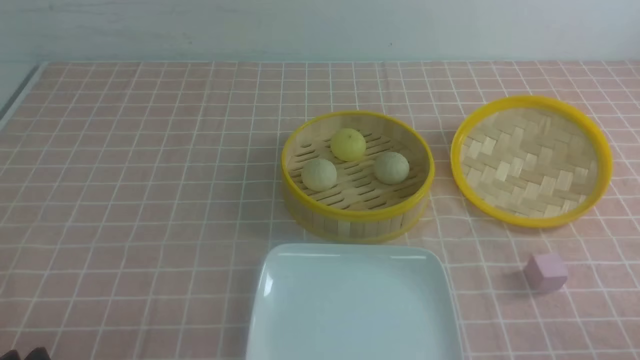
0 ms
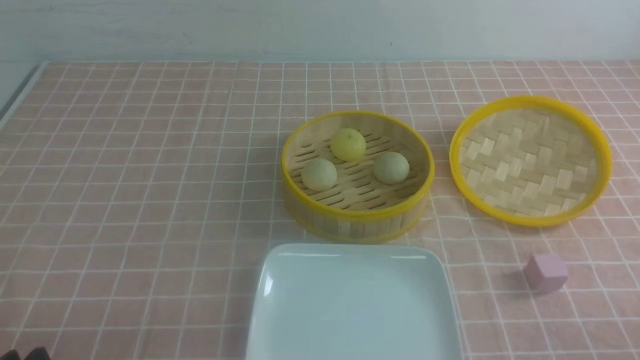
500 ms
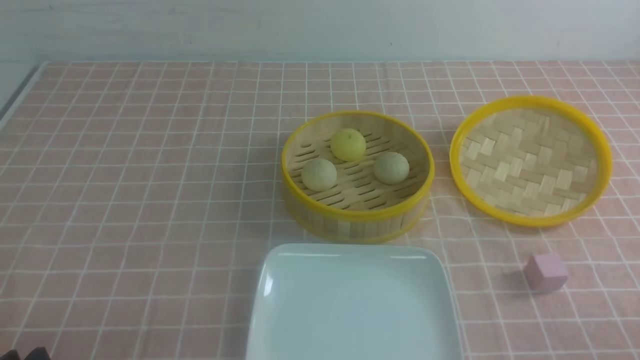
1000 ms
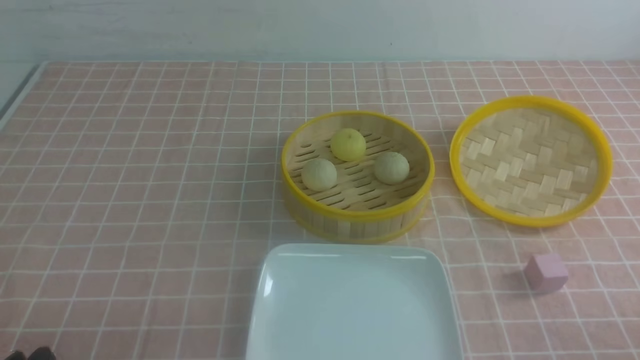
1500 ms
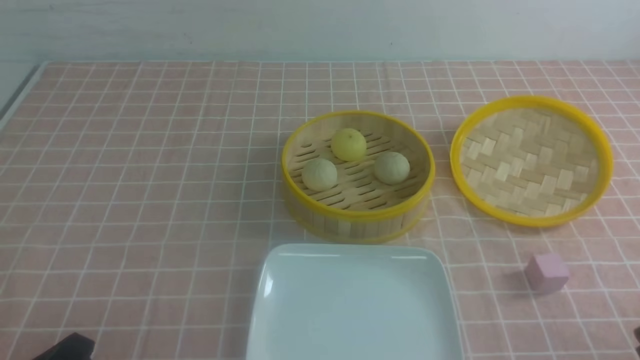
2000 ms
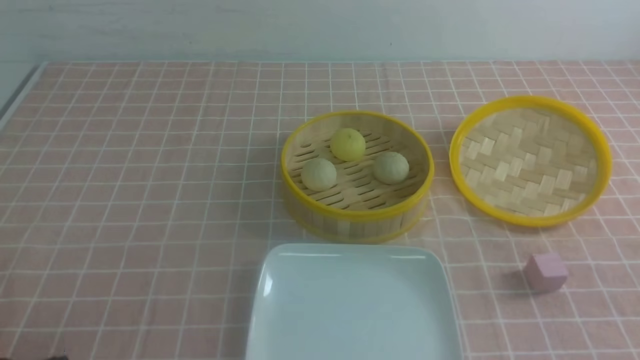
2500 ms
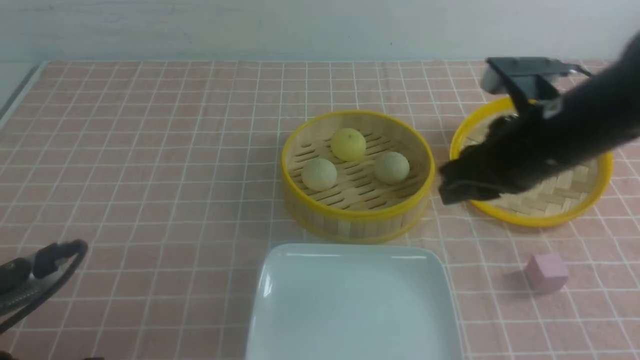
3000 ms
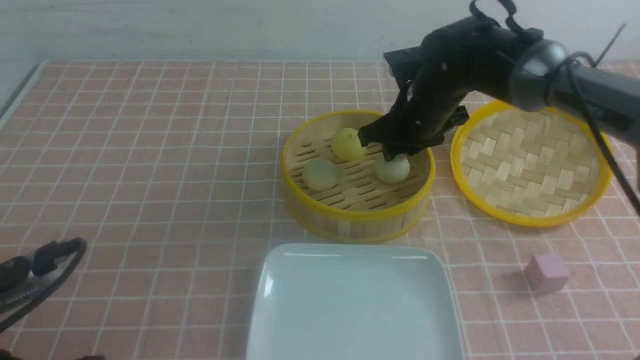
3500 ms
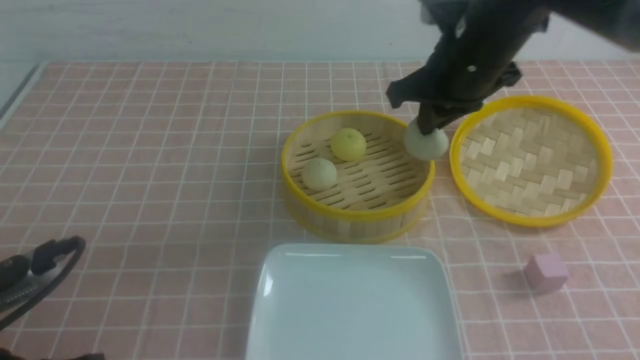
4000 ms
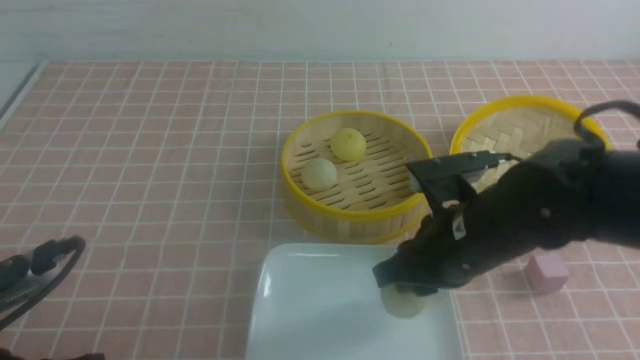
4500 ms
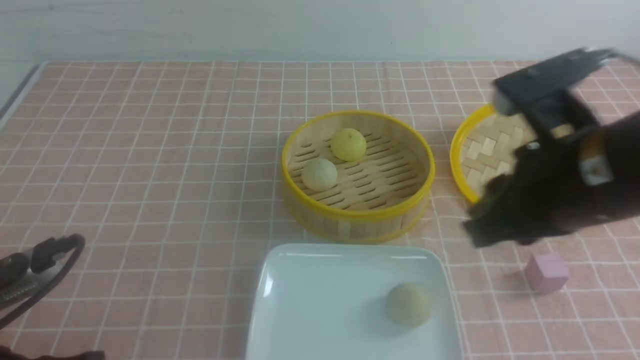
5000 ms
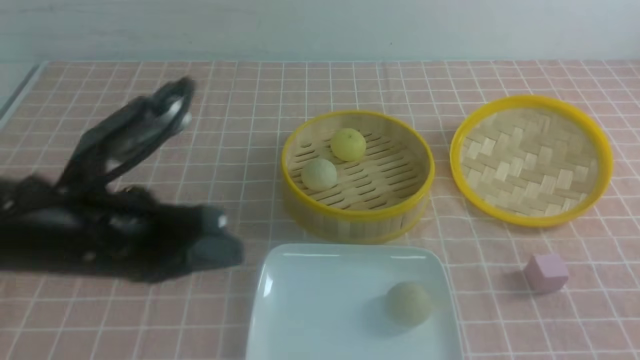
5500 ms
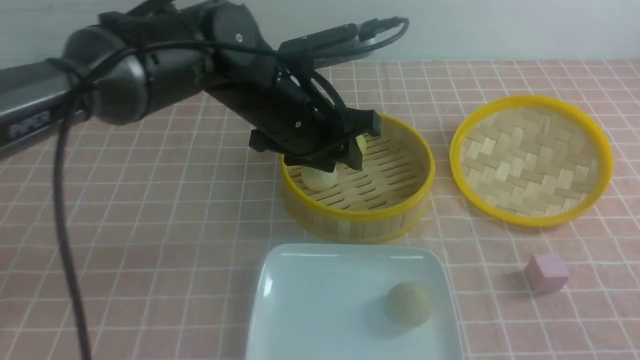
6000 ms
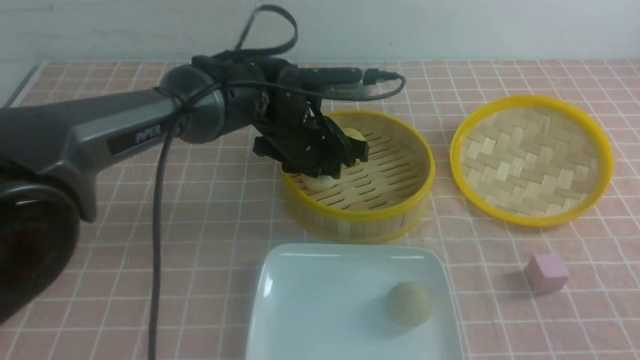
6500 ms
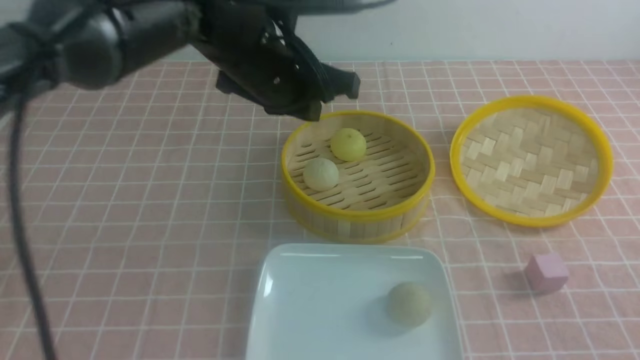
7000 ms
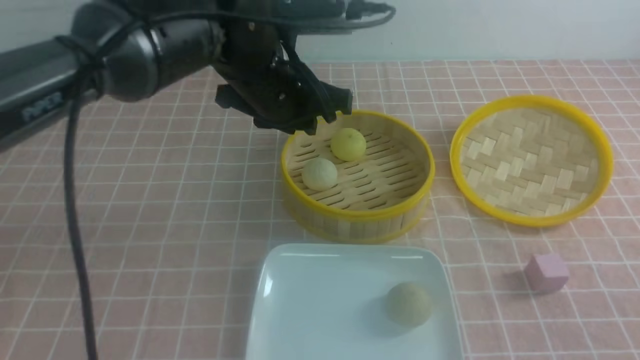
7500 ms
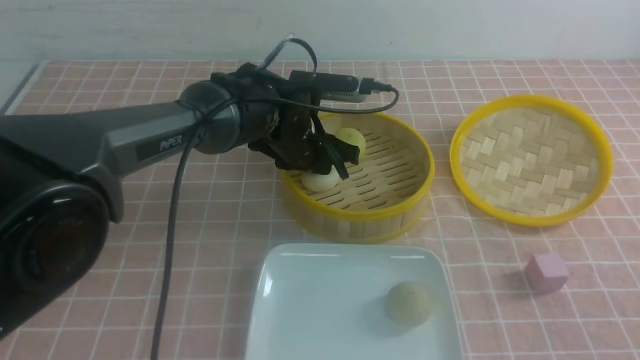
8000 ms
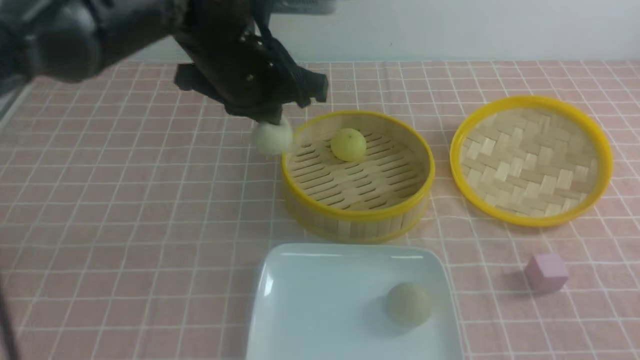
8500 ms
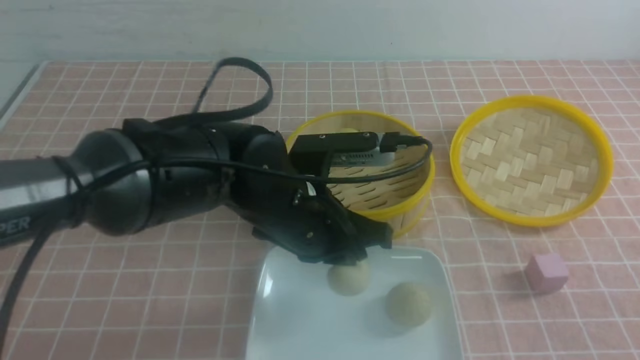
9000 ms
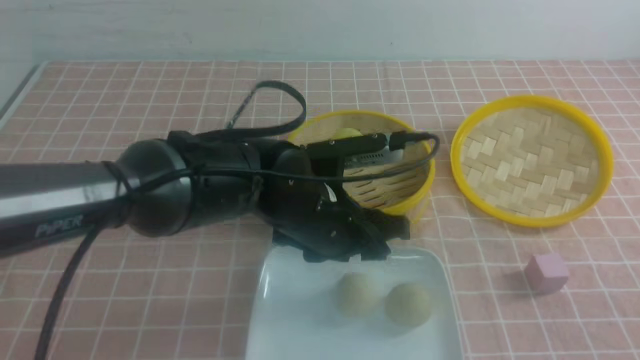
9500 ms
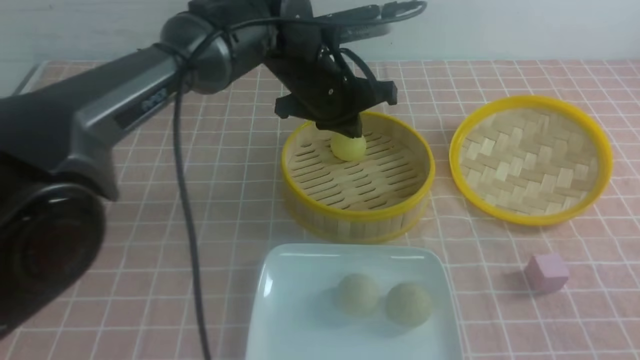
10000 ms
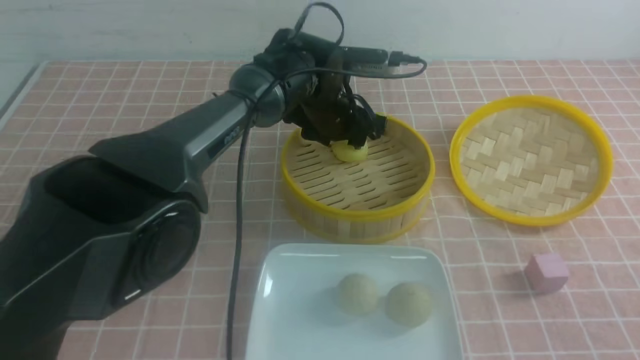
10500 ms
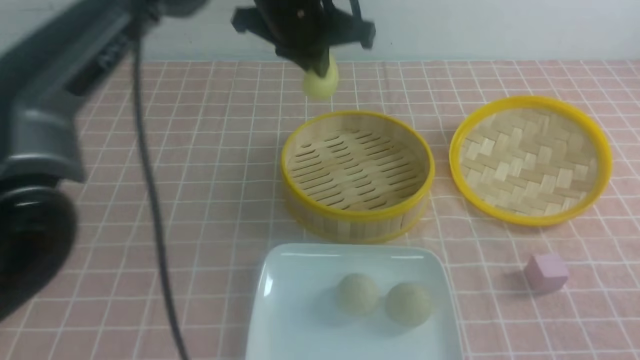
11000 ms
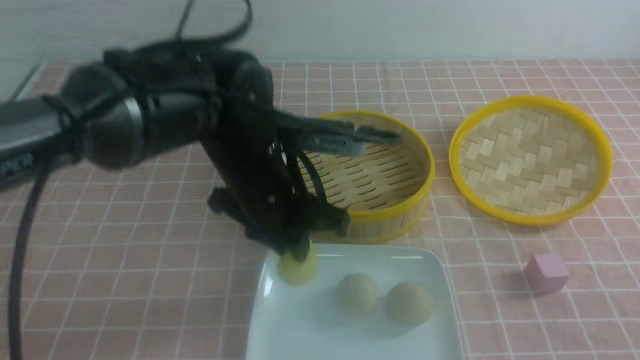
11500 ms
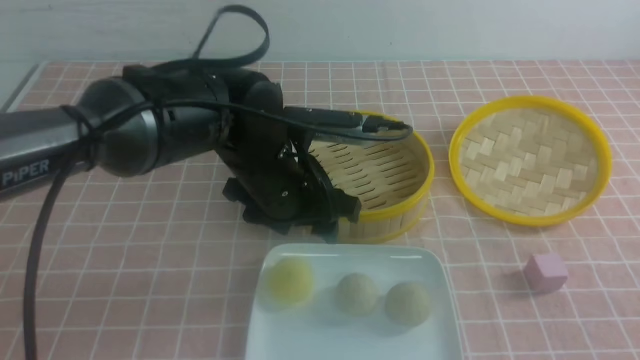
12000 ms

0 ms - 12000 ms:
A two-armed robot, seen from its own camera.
Step, 0 ms - 3500 ms: use the right arm to grab the steamed stuffed bun that is closest to it.
Step, 4000 ms - 4500 ms: use the right arm to put the steamed stuffed bun into the plate.
Step, 5000 ms - 8000 ms: use the left arm to grab the steamed stuffed bun that is closest to it.
Step, 8500 ms - 9000 ms: use the left arm to put the steamed stuffed bun into the plate.
Step, 9500 ms - 10500 ms: use the left arm to grab the steamed stuffed bun that is closest to it.
Step, 11000 ms - 11500 ms: use the left arm to put the steamed stuffed bun into the plate.
2000 ms - 4000 ms: The right gripper goes roughly 35 cm forward and to the left, and closes up; the left gripper shifts some 5 cm forward.
4000 ms - 6000 ms: The left gripper heads forward and to the right, covering about 30 cm, and opens its fingers. The right gripper goes some 35 cm backward and to the right, and opens, then closes once more.
6000 ms - 8000 ms: The left gripper swings up and down, some 10 cm each way, with 2 reversals, and closes, then opens again.
8000 ms - 10000 ms: The left gripper heads upward, covering approximately 5 cm, and moves approximately 15 cm backward and comes back.
10000 ms - 12000 ms: The left gripper is displaced backward by approximately 10 cm, and opens up.

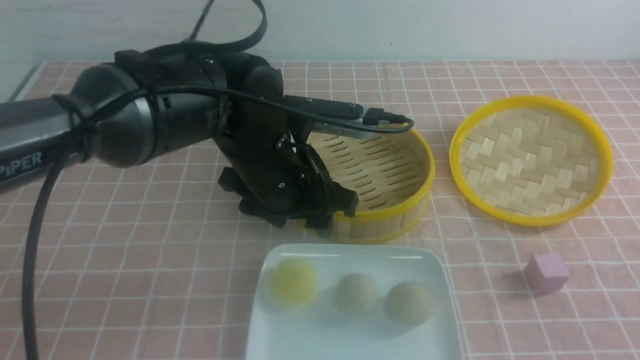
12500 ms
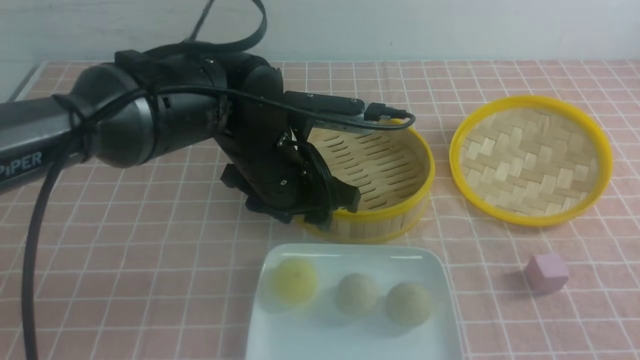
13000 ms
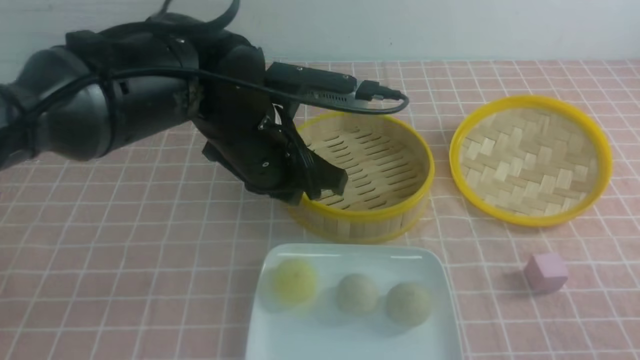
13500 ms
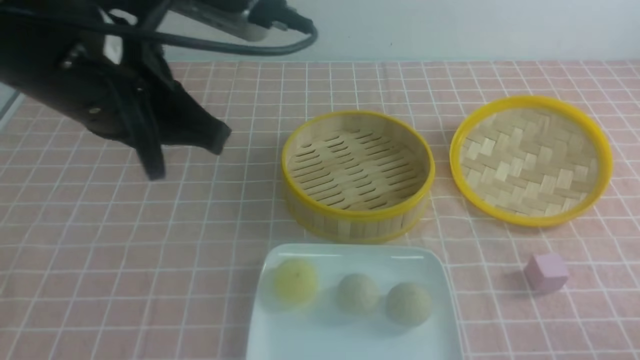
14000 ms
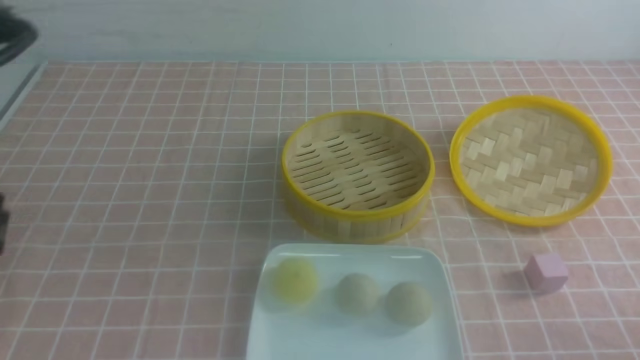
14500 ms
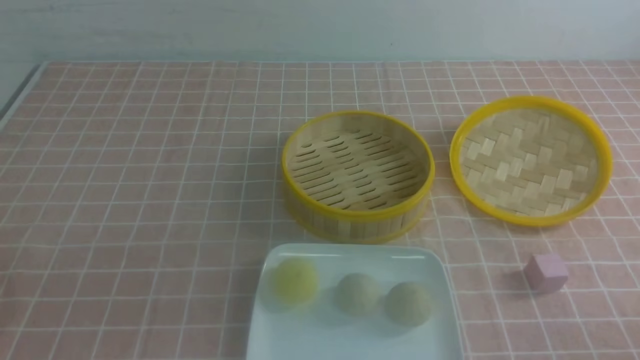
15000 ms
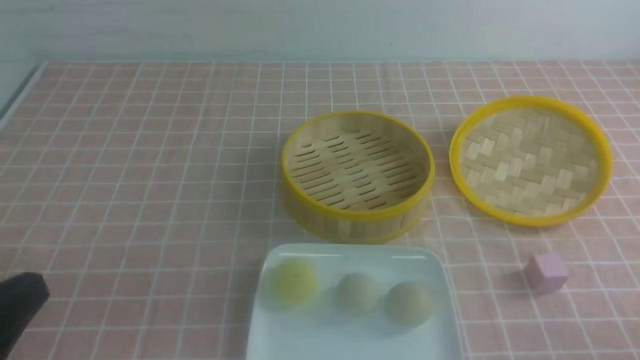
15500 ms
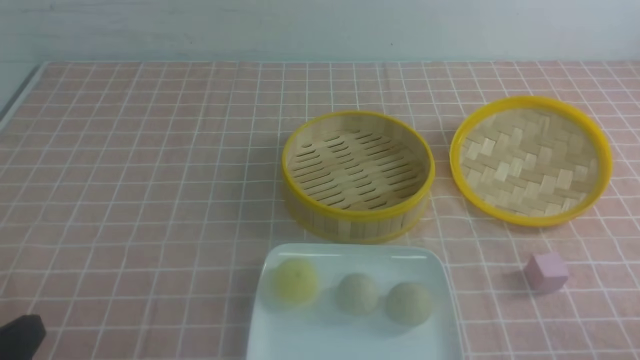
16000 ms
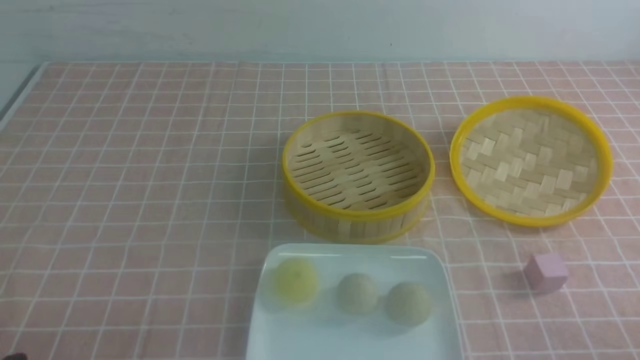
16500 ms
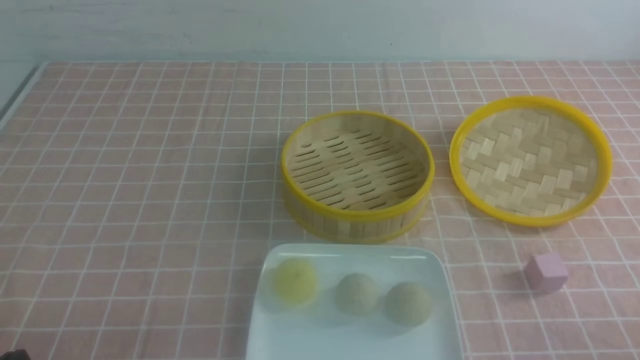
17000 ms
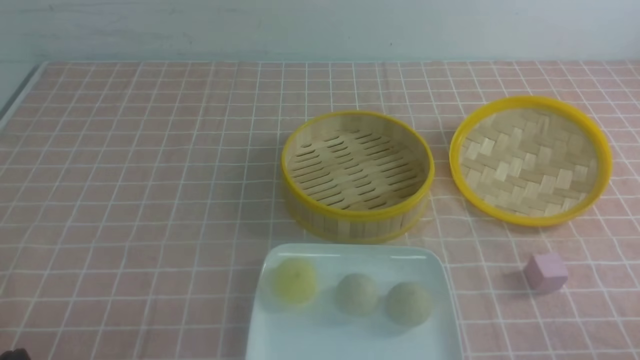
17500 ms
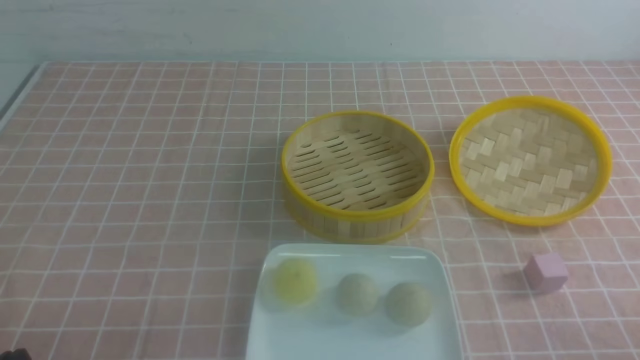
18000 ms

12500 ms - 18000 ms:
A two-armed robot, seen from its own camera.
12500 ms - 14500 ms: The left gripper goes roughly 30 cm backward, to the left and upward, and closes; the right gripper travels downward by roughly 10 cm.
14500 ms - 16000 ms: The left gripper shifts about 20 cm downward.
16000 ms - 18000 ms: The left gripper moves downward, some 5 cm.
